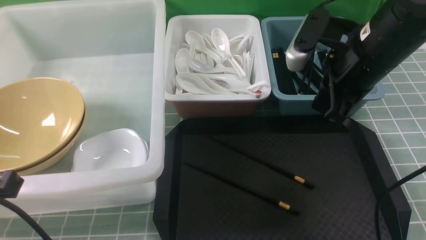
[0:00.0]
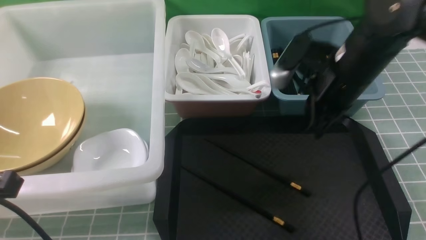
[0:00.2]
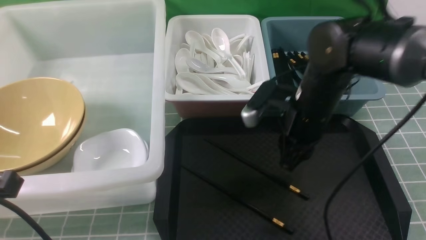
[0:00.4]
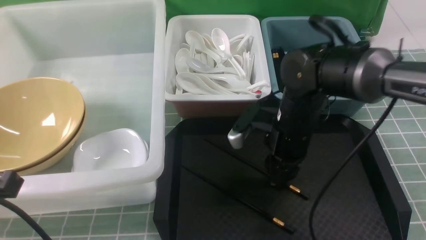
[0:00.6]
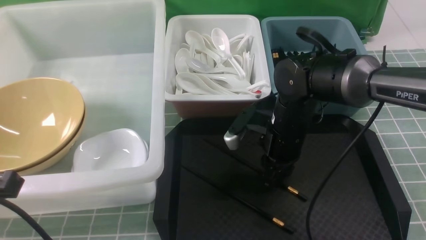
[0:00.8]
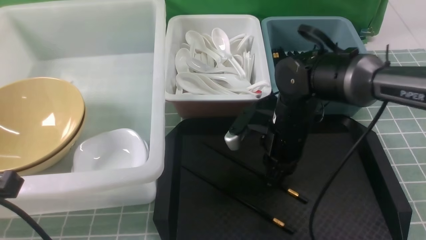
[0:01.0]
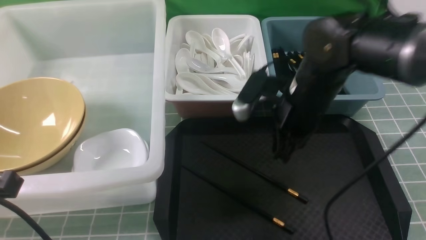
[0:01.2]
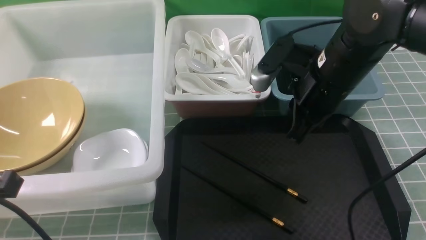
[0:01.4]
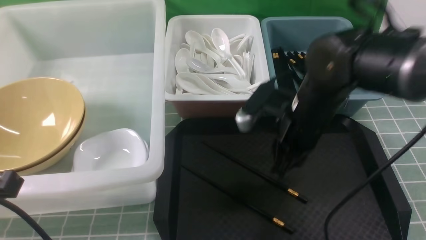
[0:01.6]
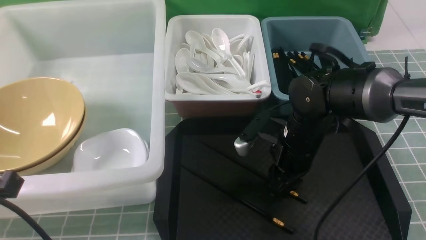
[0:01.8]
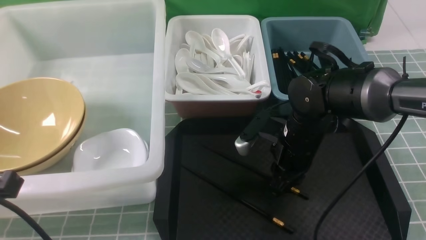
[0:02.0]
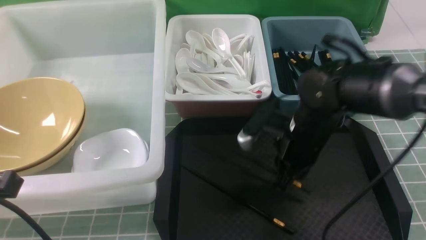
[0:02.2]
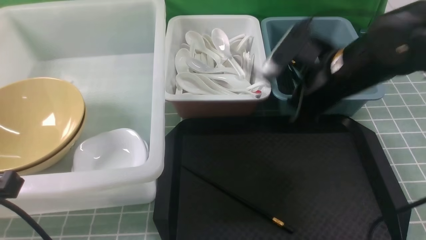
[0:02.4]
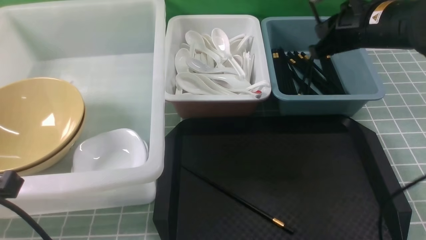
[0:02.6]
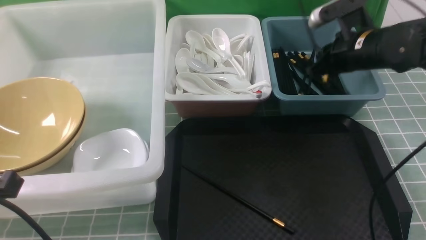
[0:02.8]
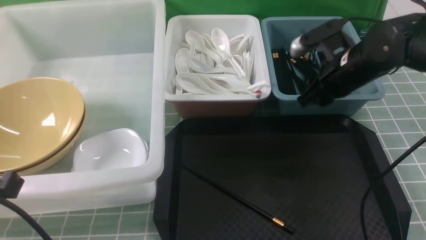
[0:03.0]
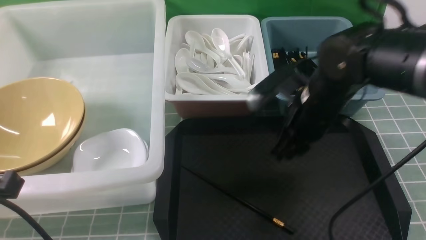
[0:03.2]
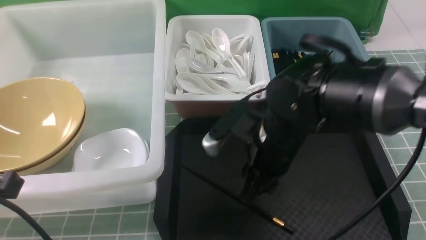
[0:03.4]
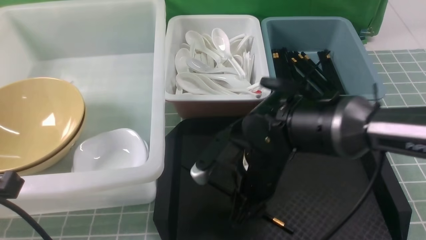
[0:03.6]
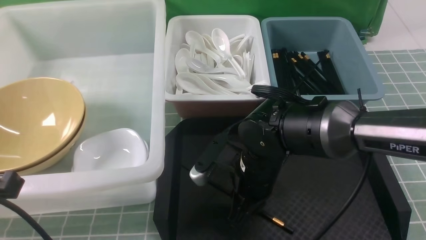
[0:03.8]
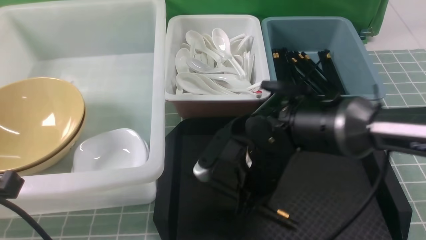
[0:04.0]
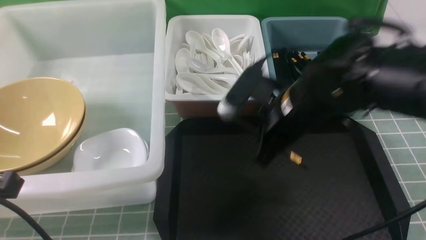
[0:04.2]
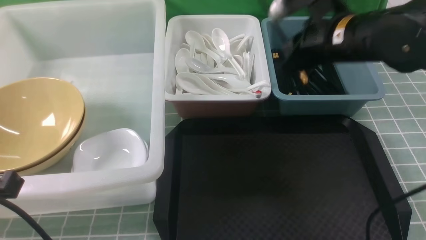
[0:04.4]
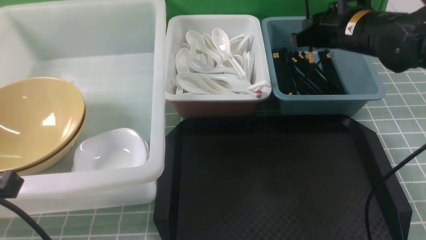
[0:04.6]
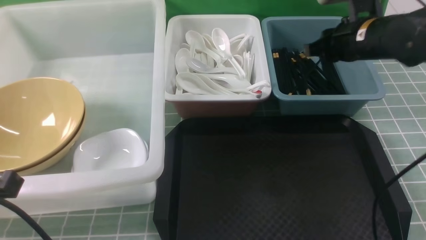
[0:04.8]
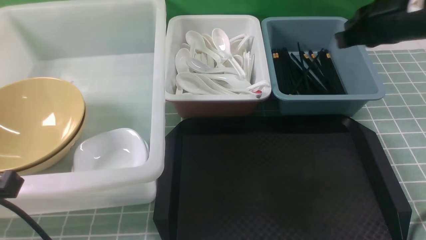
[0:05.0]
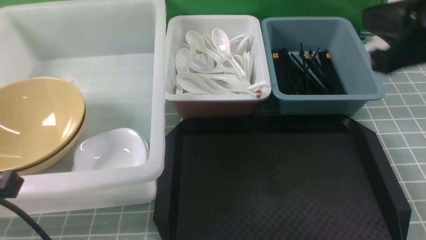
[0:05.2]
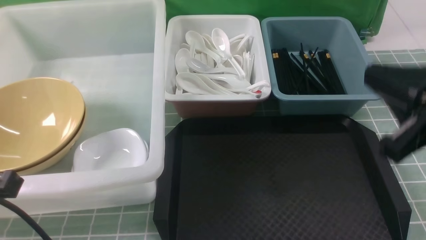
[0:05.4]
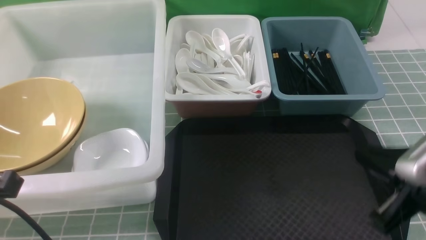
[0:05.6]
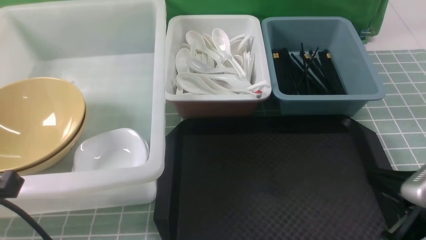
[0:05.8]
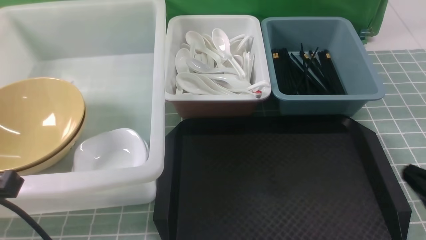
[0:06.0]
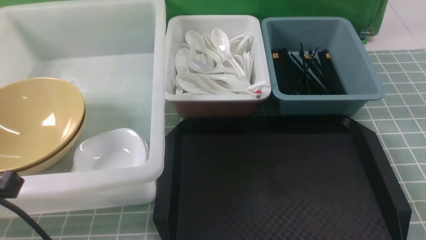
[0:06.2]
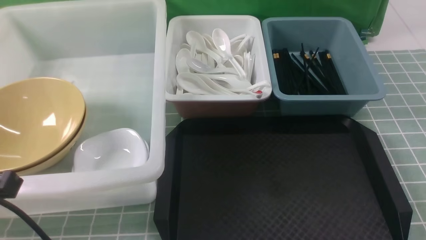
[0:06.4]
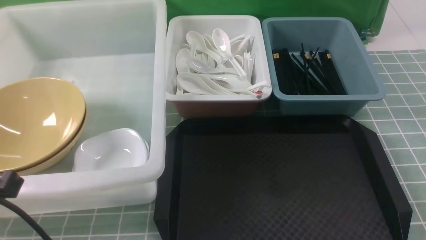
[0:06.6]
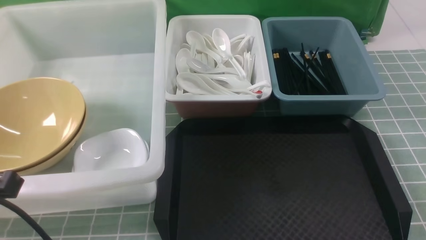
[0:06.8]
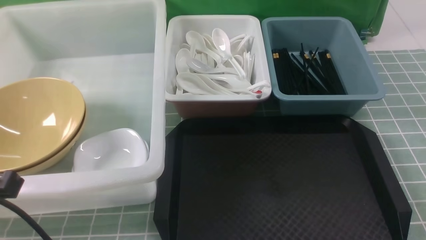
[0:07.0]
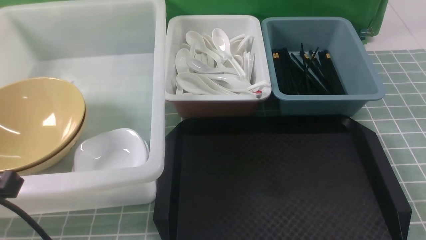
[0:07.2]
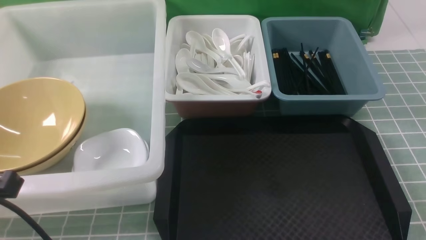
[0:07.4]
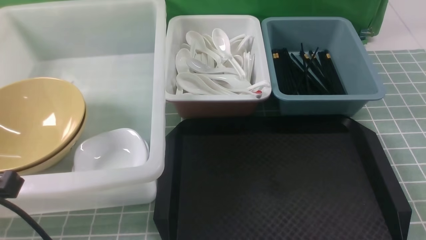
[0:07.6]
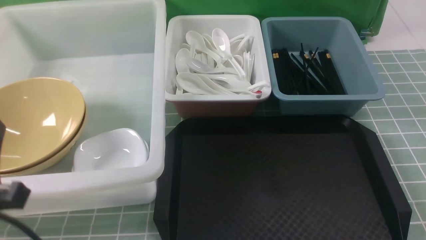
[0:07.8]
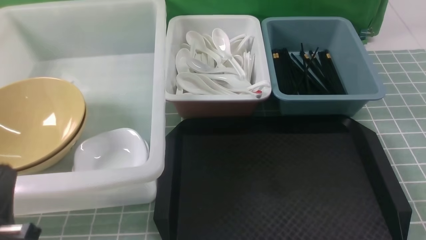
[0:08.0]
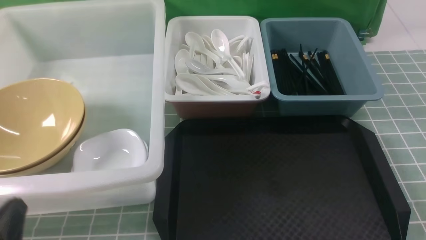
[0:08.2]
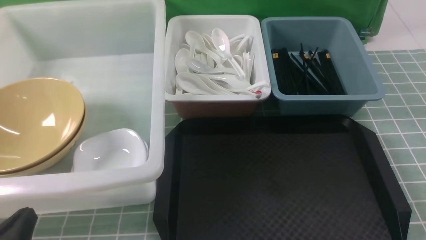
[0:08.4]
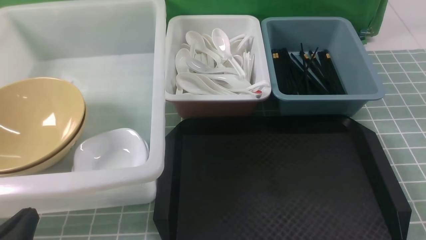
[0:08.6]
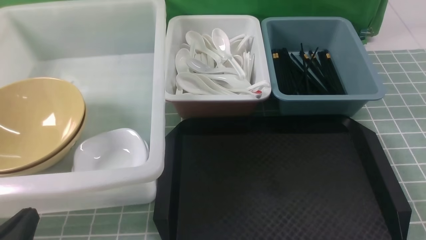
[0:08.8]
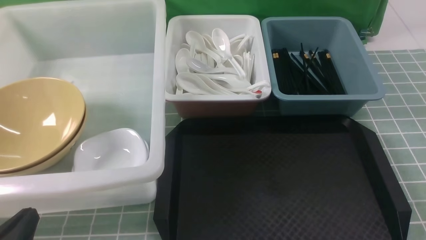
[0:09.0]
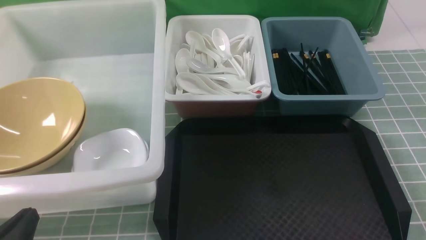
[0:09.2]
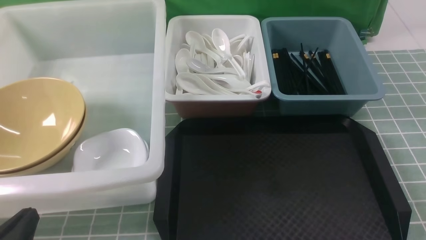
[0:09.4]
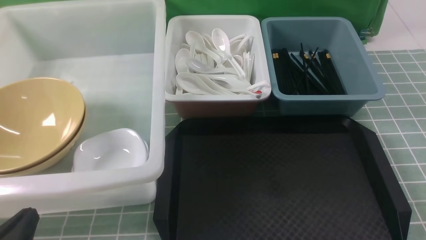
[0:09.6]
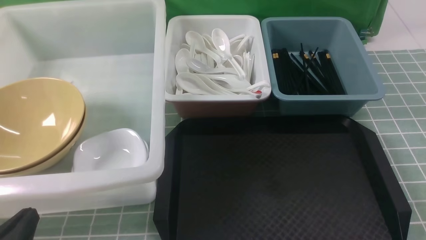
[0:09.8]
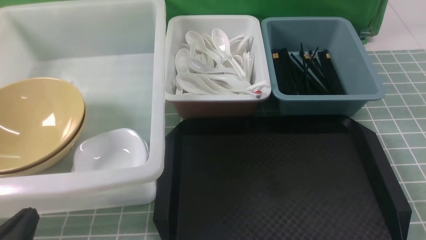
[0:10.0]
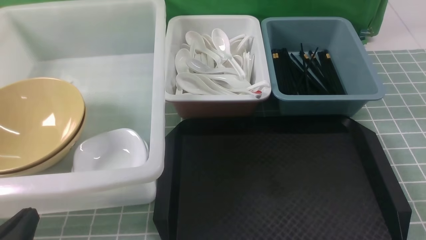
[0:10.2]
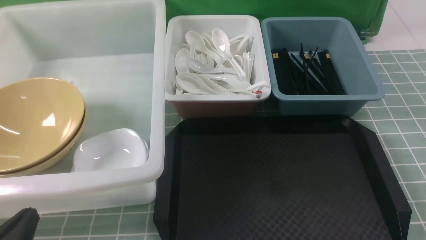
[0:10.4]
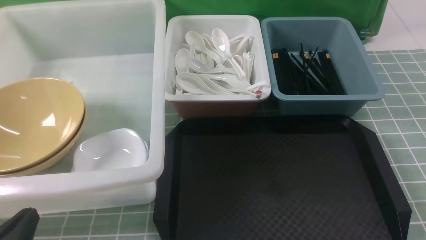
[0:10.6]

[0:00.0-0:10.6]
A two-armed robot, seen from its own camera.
Task of the whole recording: on blue table put chopsticks spoon bowls plates into blue grey white boxes.
Step, 0:00.0 to 0:02.2: use the right arm to grab a chopstick.
Step, 0:02.4 to 0:03.0: use the right arm to put a chopstick into the small storage box on the right.
Step, 0:03.2 to 0:04.0: use the right arm to grab a chopstick.
Step, 0:04.2 to 0:04.8: use the right arm to put a chopstick into the small storage box on the right.
0:00.0 to 0:01.6: The right gripper goes up and down, roughly 10 cm each way, reversing 2 times.
0:01.6 to 0:03.0: The right gripper swings up and down, roughly 10 cm each way, with 2 reversals.
0:03.0 to 0:04.6: The right gripper moves upward, about 5 cm, and reaches some 10 cm to the left, then returns.
0:04.6 to 0:06.0: The right gripper goes roughly 30 cm backward.
0:06.0 to 0:07.6: The right gripper moves downward, about 5 cm.
0:07.6 to 0:09.0: The left gripper shifts approximately 10 cm downward.
0:09.0 to 0:10.6: The two grippers keep their place.
